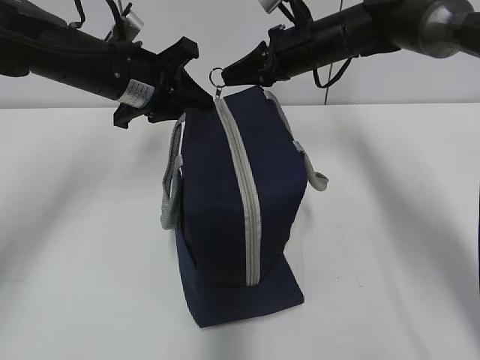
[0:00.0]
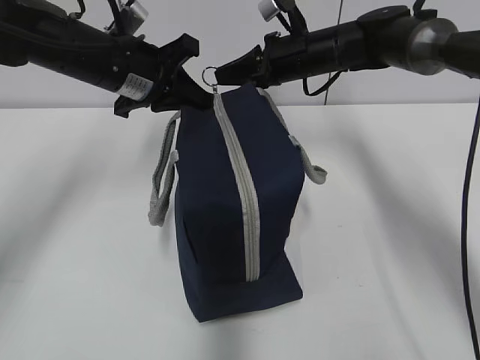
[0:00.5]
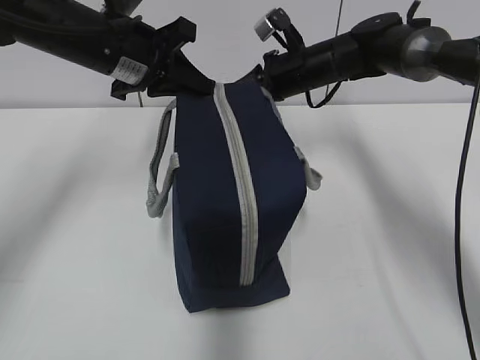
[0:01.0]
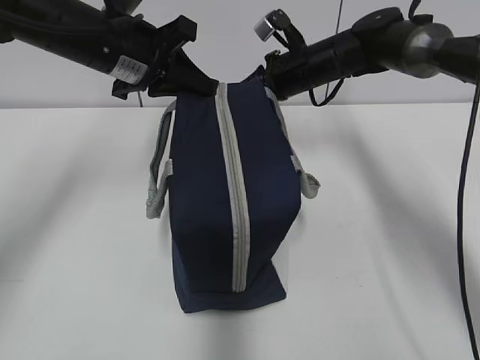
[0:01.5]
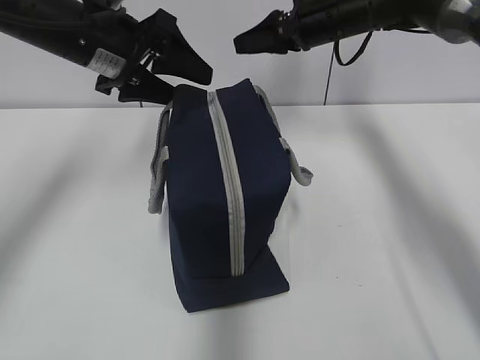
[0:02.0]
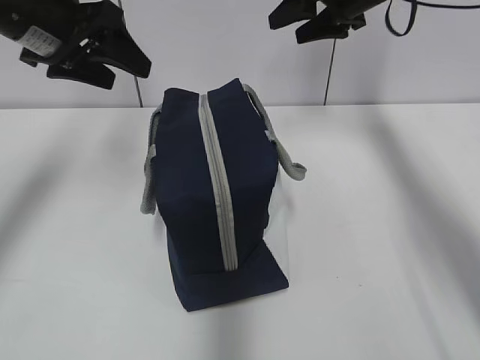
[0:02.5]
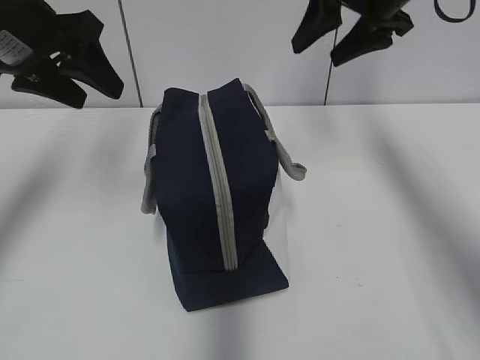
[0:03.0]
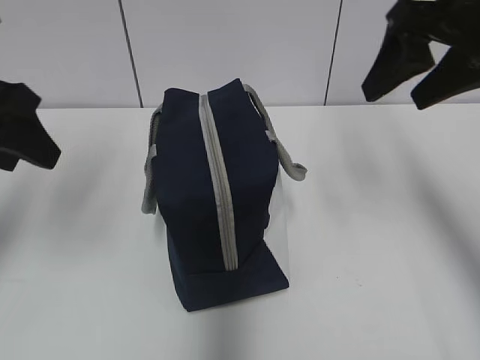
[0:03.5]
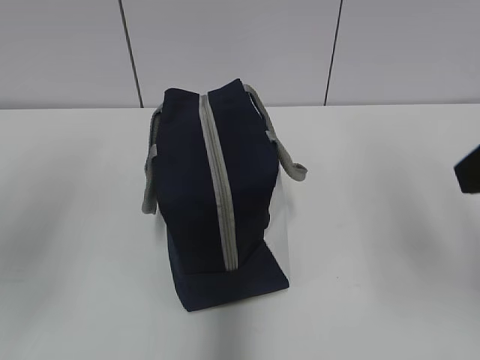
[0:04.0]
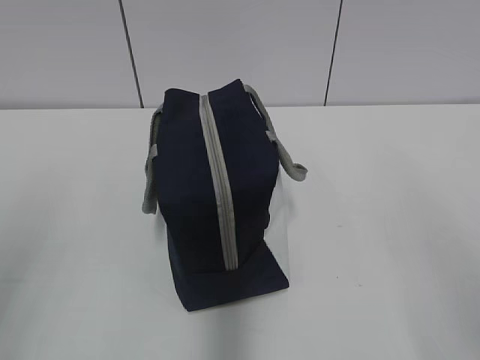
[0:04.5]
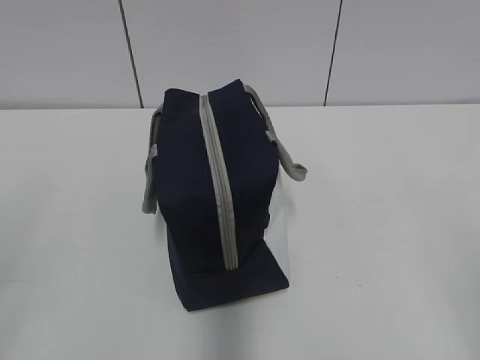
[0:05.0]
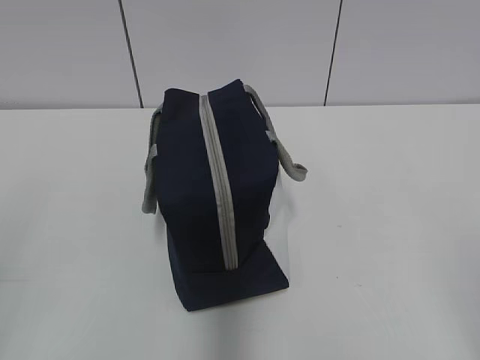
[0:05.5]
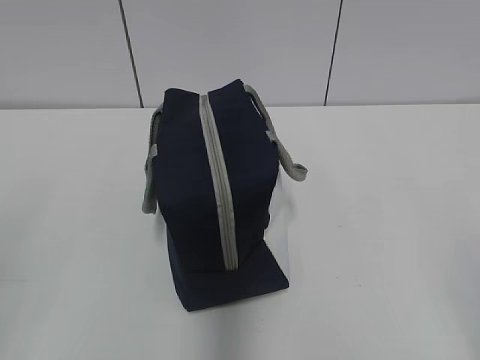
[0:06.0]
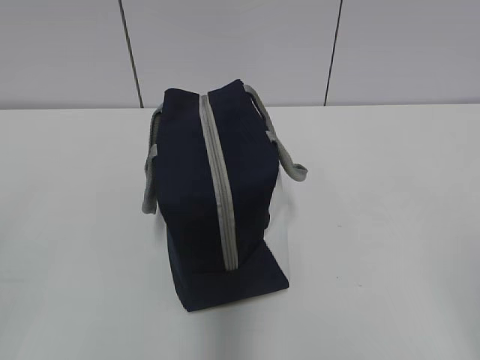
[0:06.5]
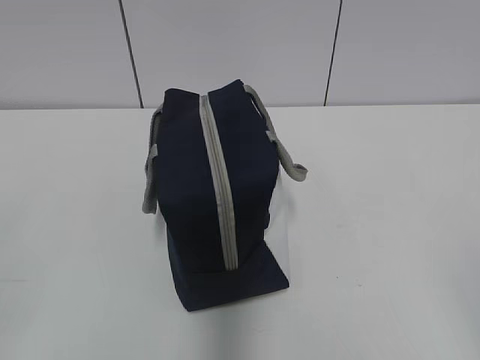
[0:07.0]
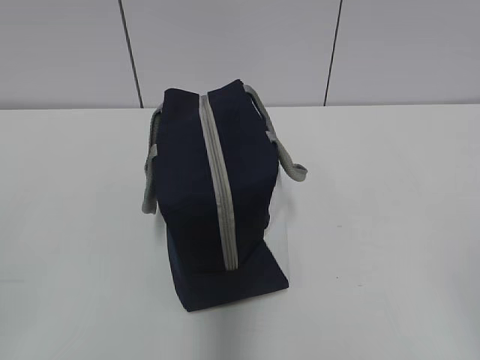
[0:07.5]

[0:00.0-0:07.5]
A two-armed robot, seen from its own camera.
0:00.0 to 0:02.0: The right gripper shifts by about 5 cm, and opens. Meanwhile the left gripper opens up.
0:02.0 to 0:04.0: The left gripper is displaced backward and to the left by approximately 25 cm. Meanwhile the right gripper heads backward, covering about 35 cm.
0:04.0 to 0:05.5: The left gripper goes about 10 cm backward. The right gripper is displaced backward and downward by about 15 cm.

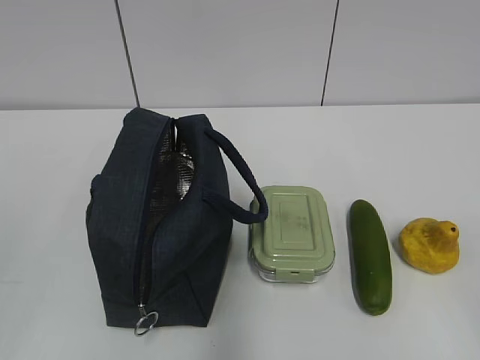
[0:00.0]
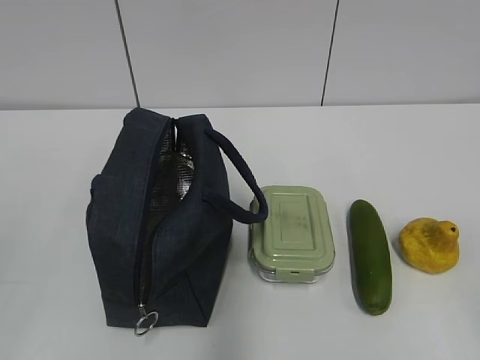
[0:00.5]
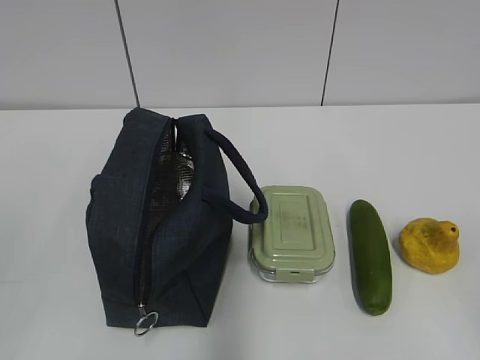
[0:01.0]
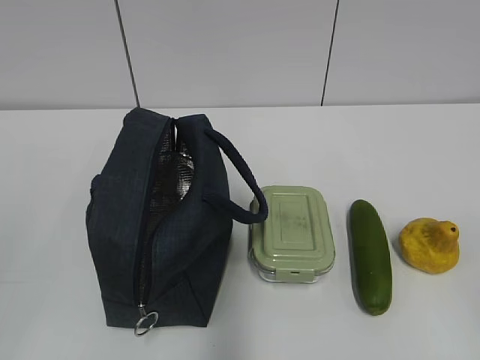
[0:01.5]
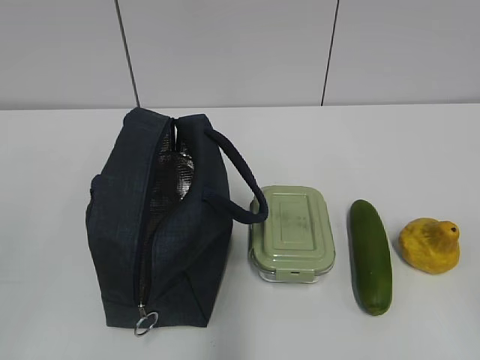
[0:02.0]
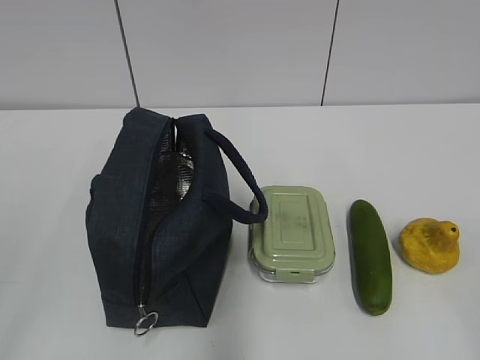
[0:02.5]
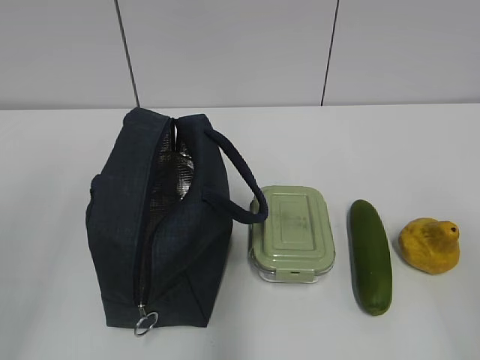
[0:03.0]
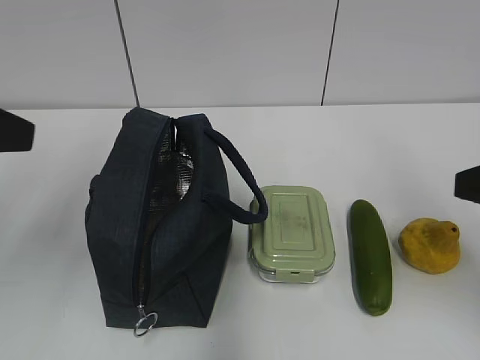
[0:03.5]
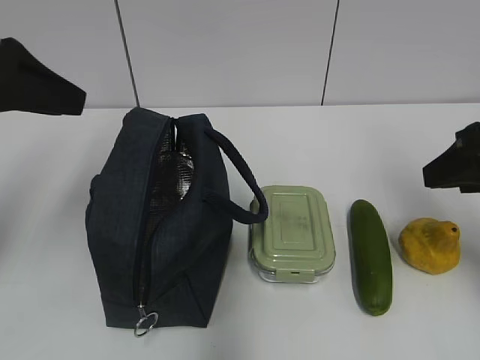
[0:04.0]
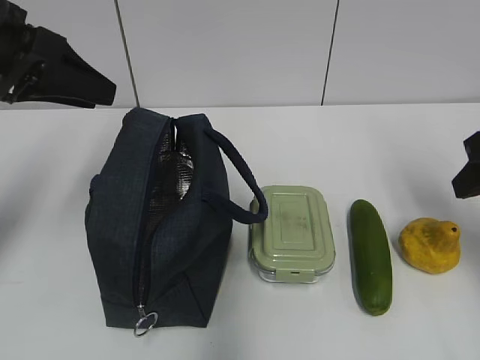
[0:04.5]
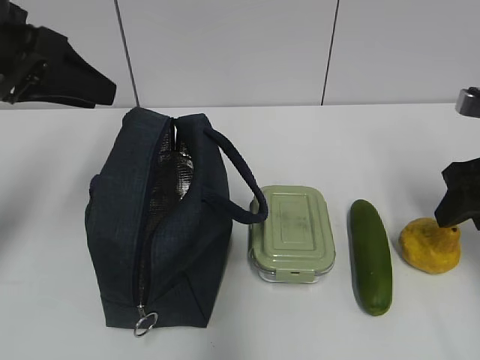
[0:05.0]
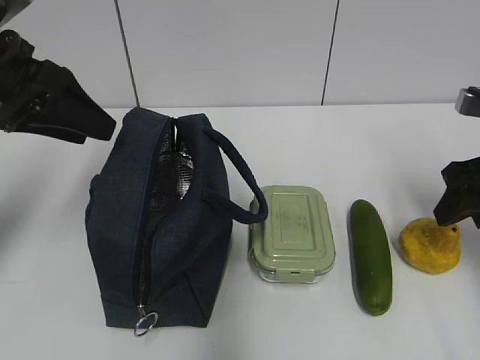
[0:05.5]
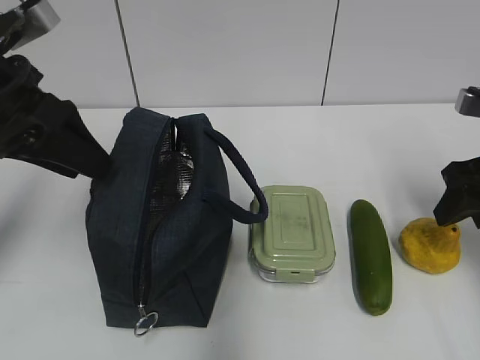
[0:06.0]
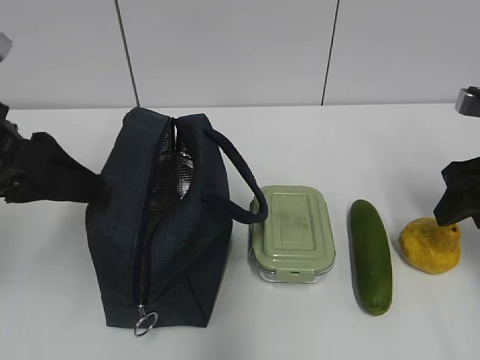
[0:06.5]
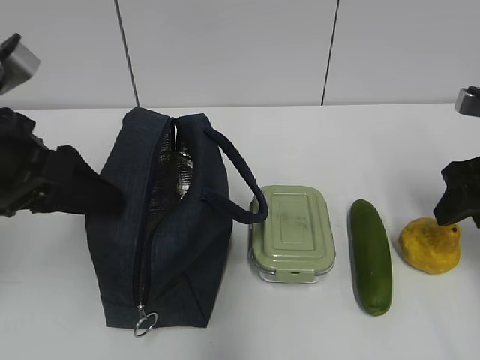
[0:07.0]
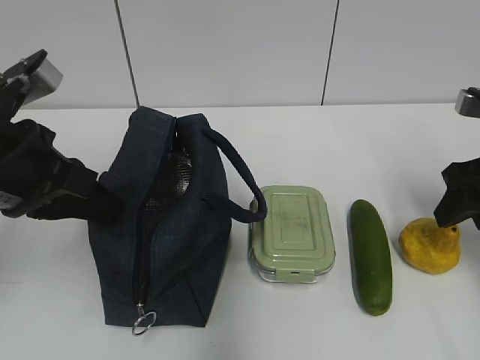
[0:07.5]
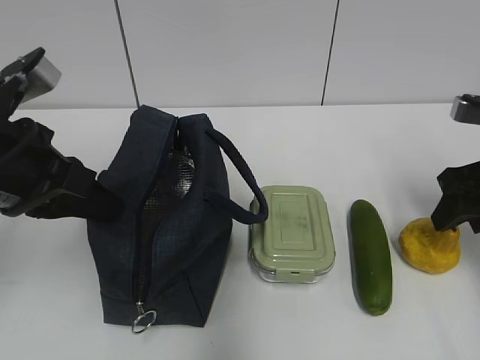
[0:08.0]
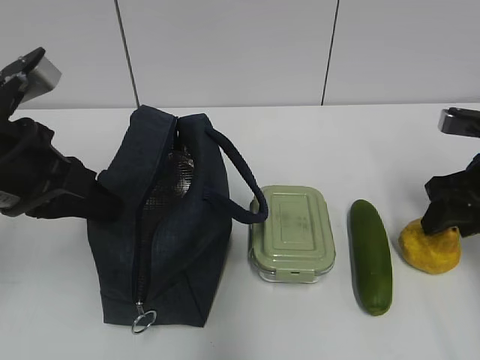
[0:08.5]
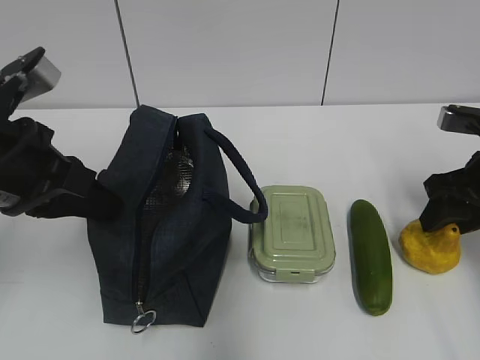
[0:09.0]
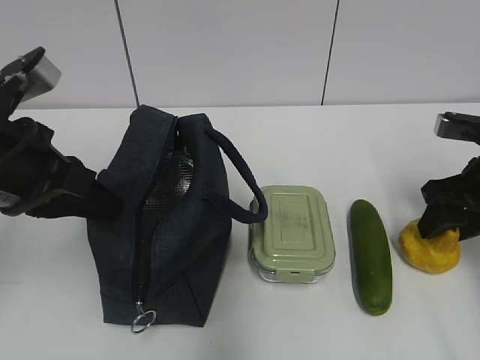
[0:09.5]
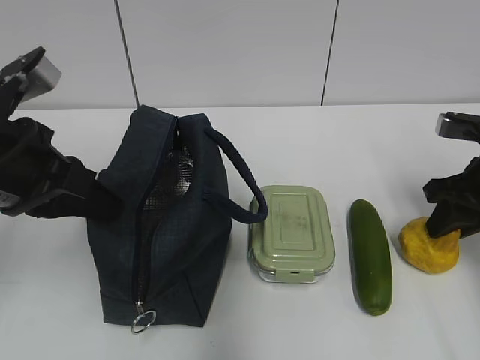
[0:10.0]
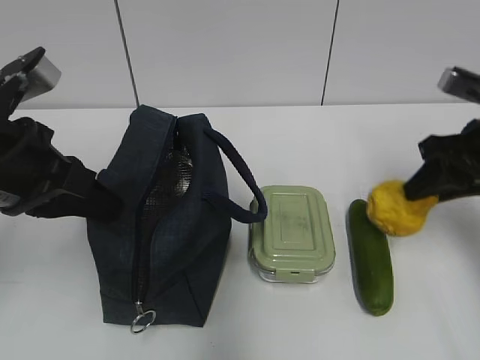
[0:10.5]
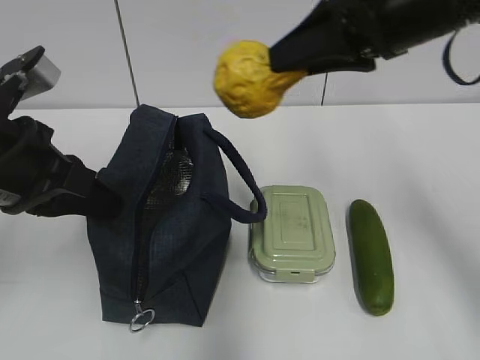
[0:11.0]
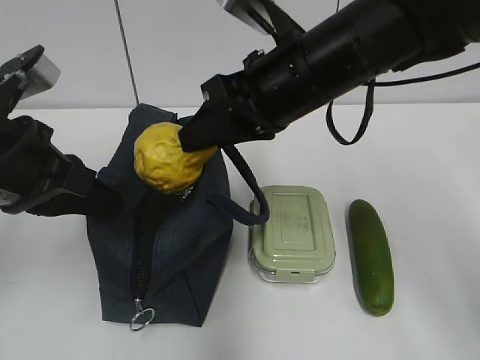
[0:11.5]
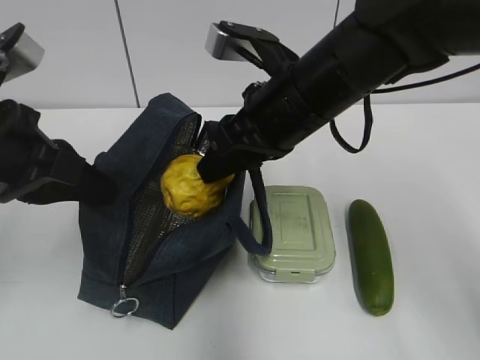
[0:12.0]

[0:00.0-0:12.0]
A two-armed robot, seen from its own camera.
0:02.0 to 0:04.0: The grippers both shift forward by roughly 25 cm.
0:04.0 to 0:06.0: The right gripper travels downward by some 5 cm.
0:06.0 to 0:08.0: The left gripper moves roughly 5 cm, and closes.
0:08.0 to 0:10.0: The right gripper closes its fingers.
0:10.0 to 0:12.0: The right gripper moves to the left, some 20 cm.

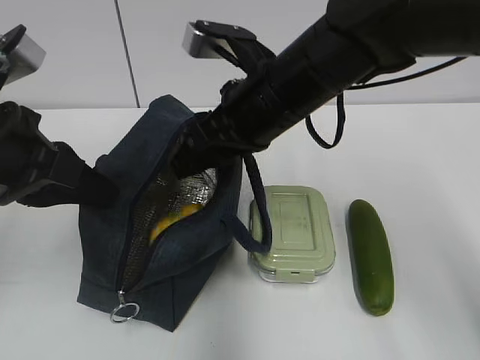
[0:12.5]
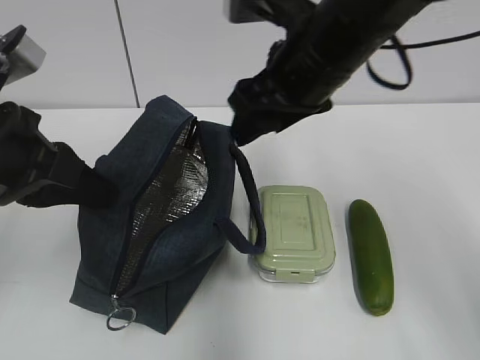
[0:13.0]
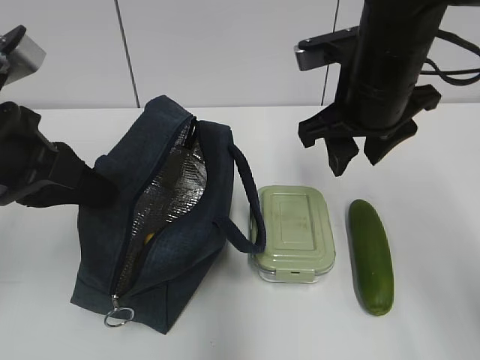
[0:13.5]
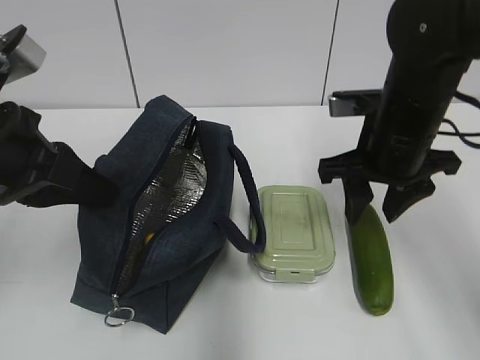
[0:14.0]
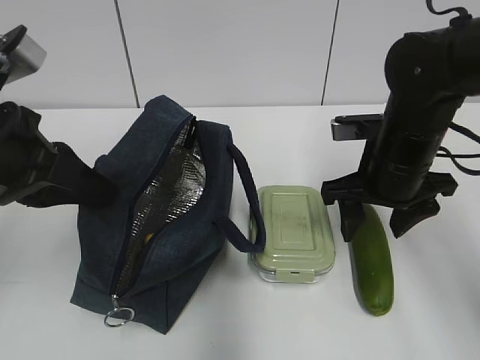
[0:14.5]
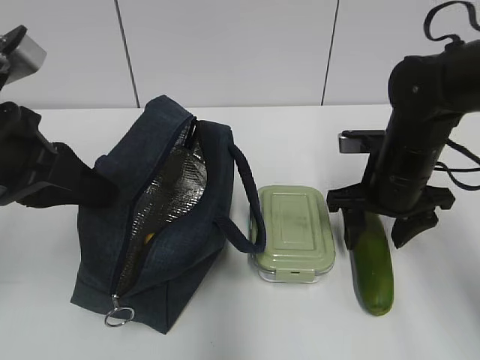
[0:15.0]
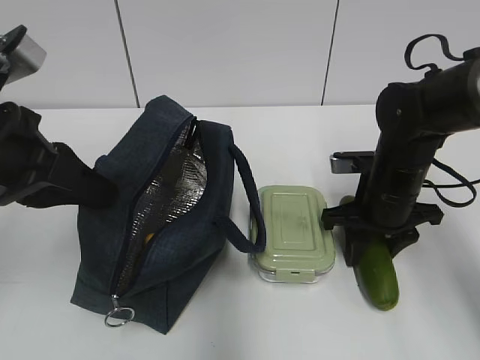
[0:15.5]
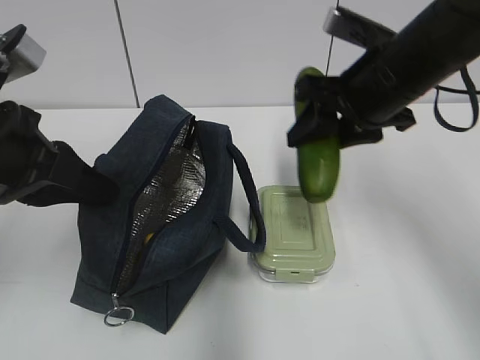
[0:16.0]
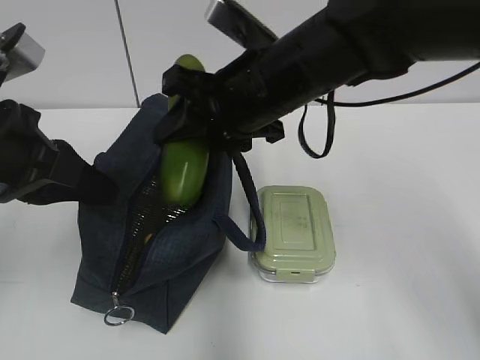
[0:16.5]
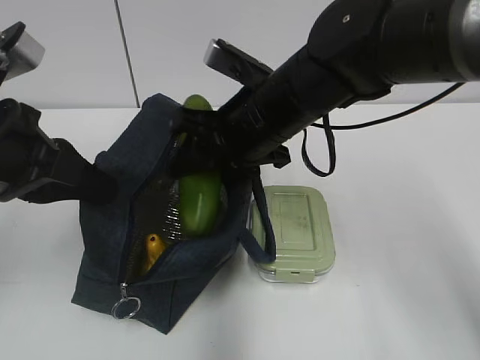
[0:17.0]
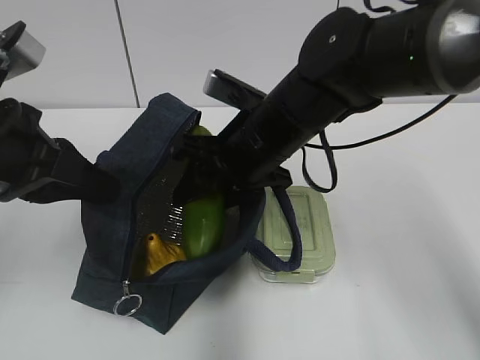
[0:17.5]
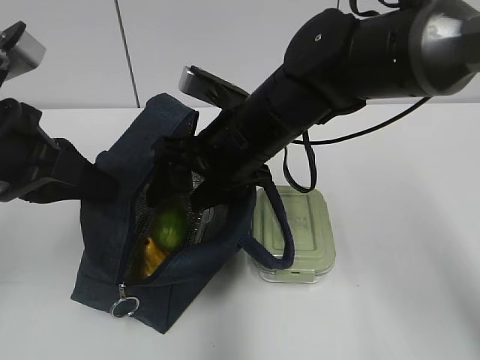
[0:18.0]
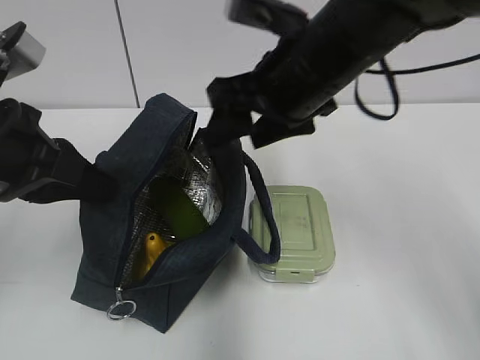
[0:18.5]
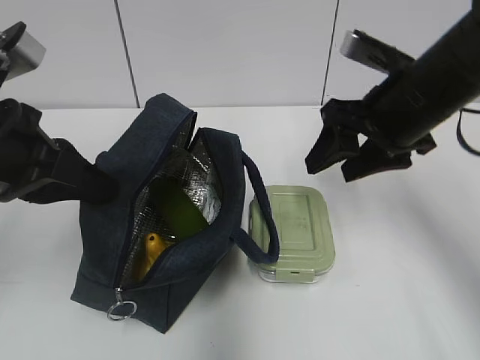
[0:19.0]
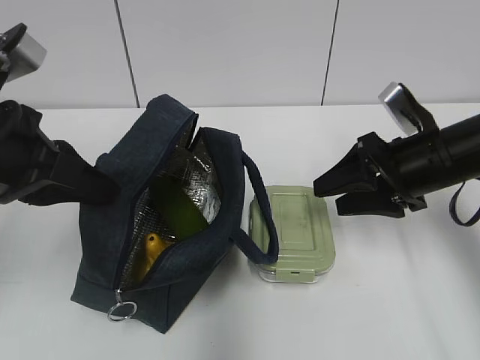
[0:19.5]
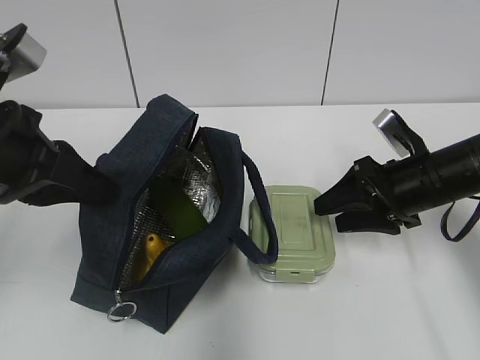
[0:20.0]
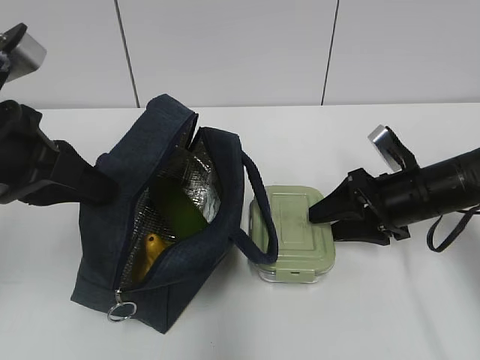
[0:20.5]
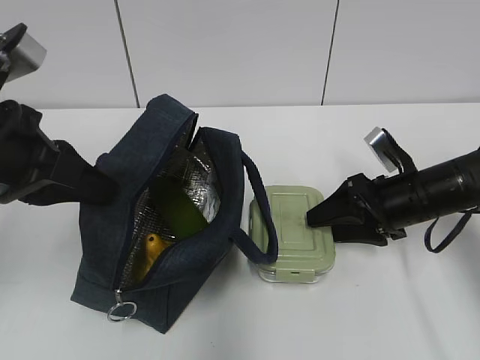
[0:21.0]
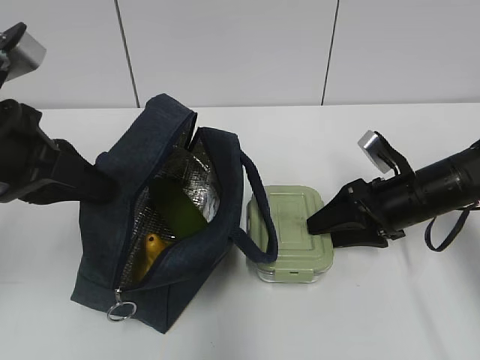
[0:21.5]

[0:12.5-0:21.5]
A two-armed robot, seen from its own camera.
0:12.5 to 0:14.5: The right gripper is displaced to the right and downward by some 15 cm.
0:14.5 to 0:17.0: The right gripper goes up and down, approximately 15 cm each way, reversing 2 times, and closes up.
0:17.0 to 0:19.5: The right gripper goes approximately 20 cm to the right.
0:19.5 to 0:21.5: The right gripper heads downward, covering approximately 5 cm.
